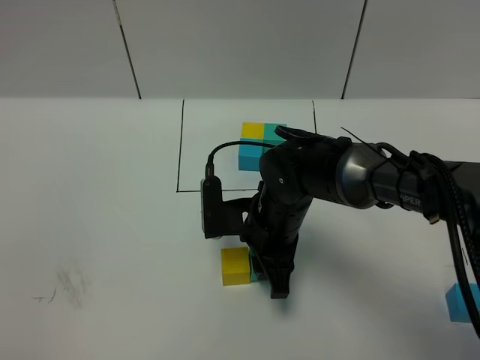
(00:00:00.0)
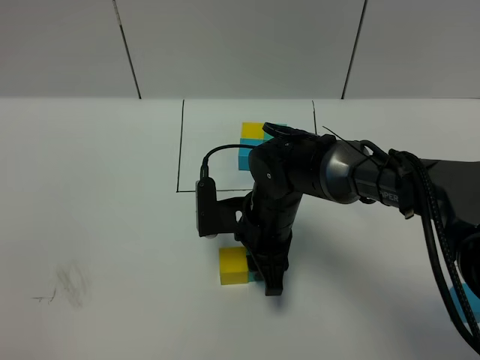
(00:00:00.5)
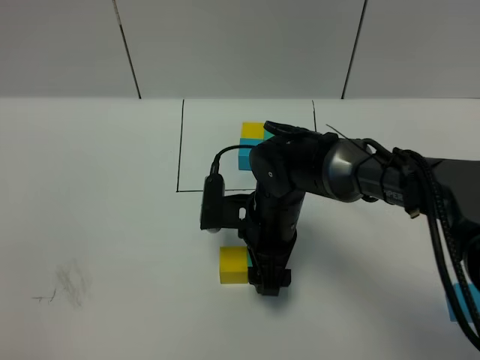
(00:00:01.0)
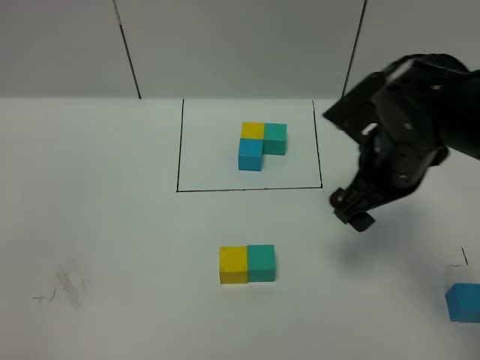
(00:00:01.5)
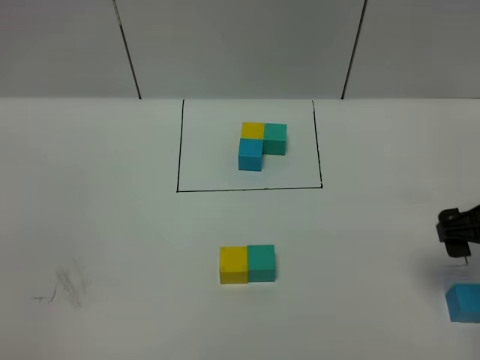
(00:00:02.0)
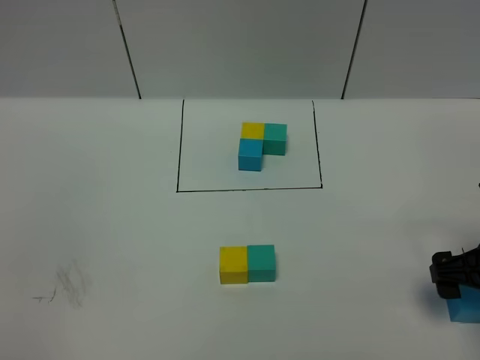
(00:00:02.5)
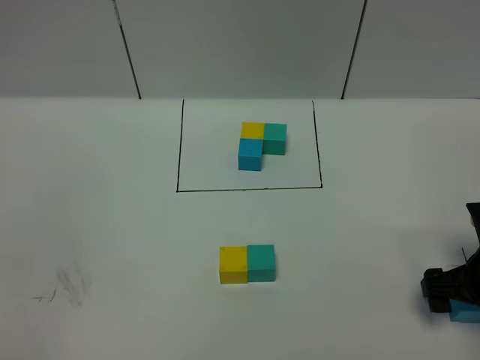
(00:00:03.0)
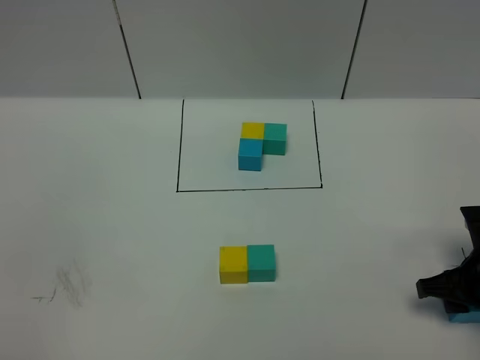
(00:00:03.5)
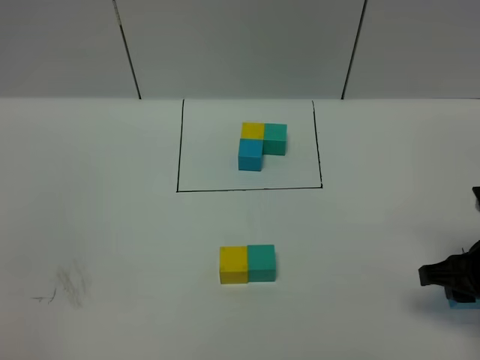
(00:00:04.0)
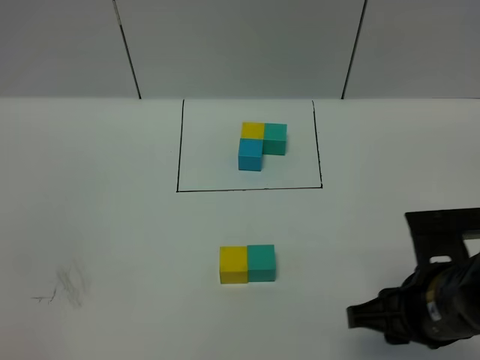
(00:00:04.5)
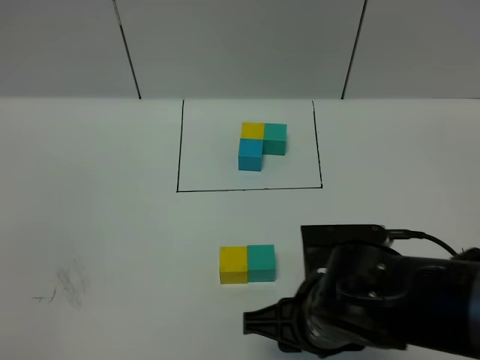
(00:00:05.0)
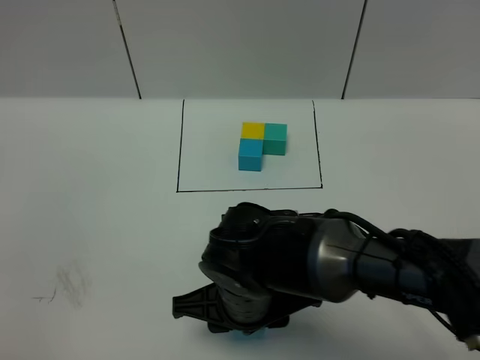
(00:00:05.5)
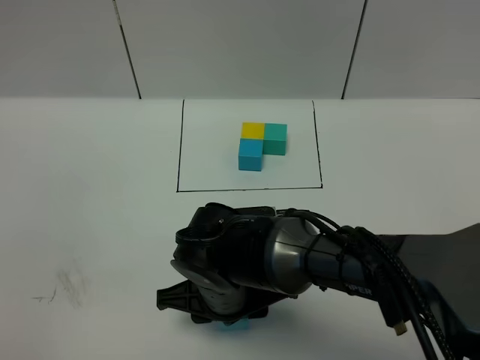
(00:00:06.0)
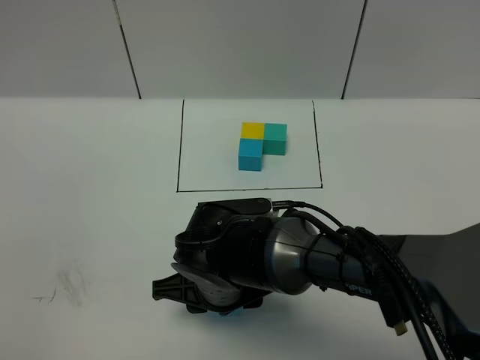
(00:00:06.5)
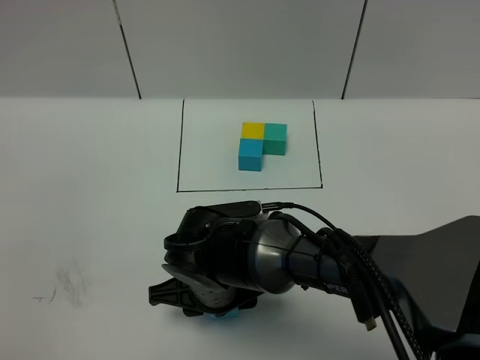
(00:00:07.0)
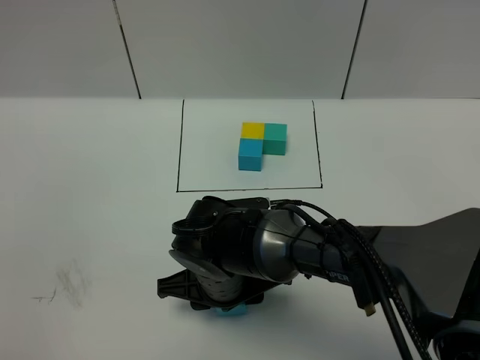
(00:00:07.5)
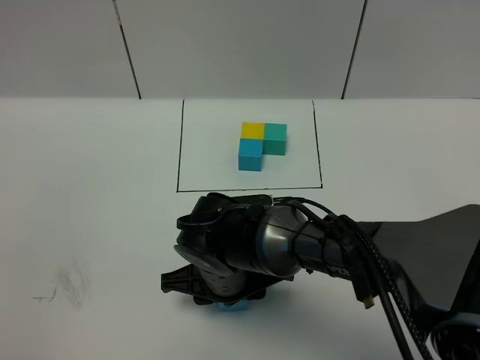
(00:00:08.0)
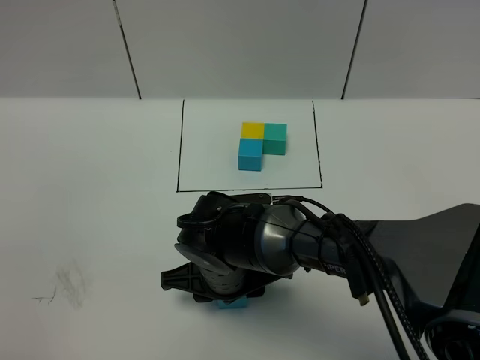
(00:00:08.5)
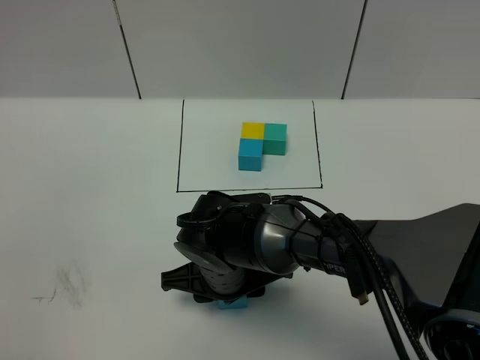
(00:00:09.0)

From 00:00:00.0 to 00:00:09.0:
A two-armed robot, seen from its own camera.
Task of the whole recording: According to the building block template in front, assemble the scattered blocks together.
From 00:00:00.0 to 00:00:02.0: The right gripper travels to the right by approximately 25 cm, and opens.
From 00:00:02.0 to 00:00:04.5: The right gripper travels to the left and backward by roughly 15 cm, and closes.
From 00:00:04.5 to 00:00:07.0: The right gripper heads to the left, covering approximately 20 cm.
From 00:00:07.0 to 00:00:09.0: There are only small adjustments of the grippers.

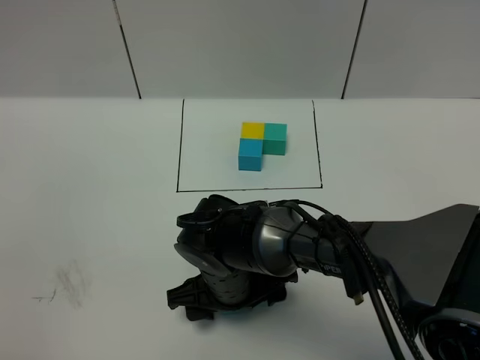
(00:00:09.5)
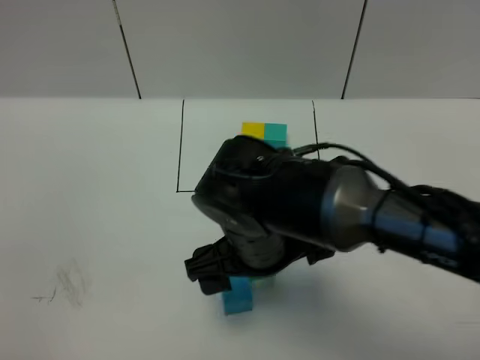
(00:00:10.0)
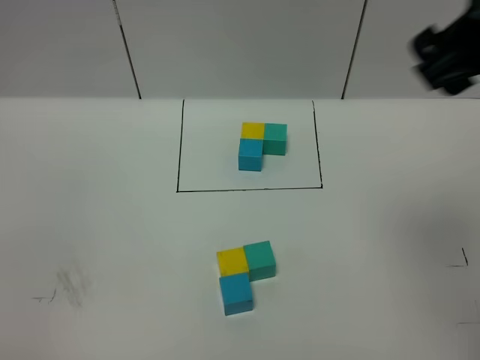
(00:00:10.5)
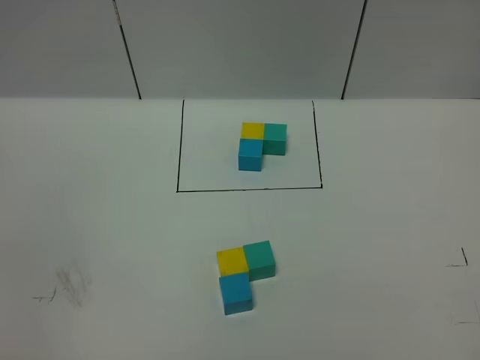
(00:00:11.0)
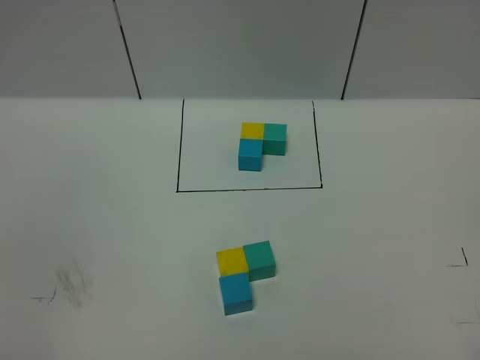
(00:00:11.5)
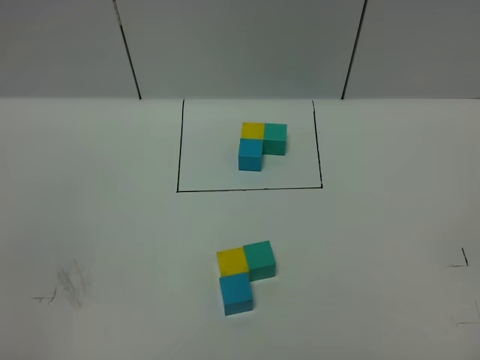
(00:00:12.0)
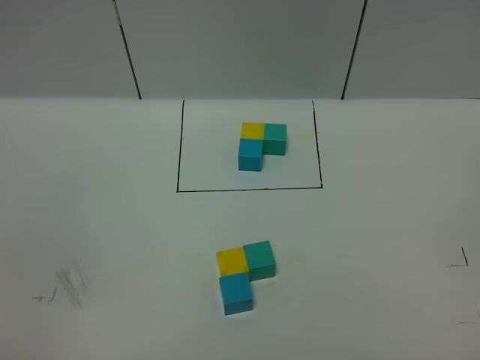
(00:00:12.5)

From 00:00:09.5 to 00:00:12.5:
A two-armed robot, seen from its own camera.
Task of the whole recording: According to the building block template in front, assemble the scattered blocks together.
From 00:00:09.5 to 00:00:11.0: The right gripper travels upward, to the right and backward by about 60 cm.
